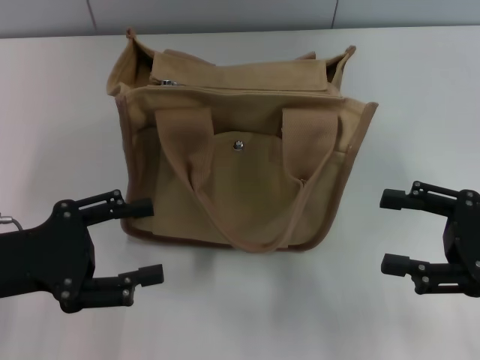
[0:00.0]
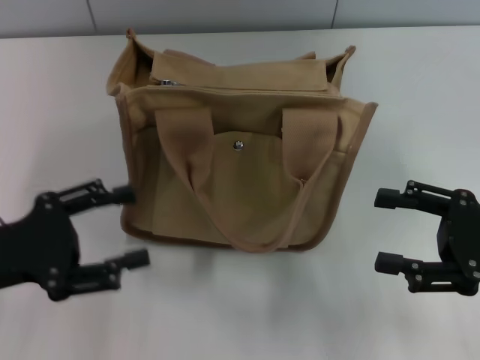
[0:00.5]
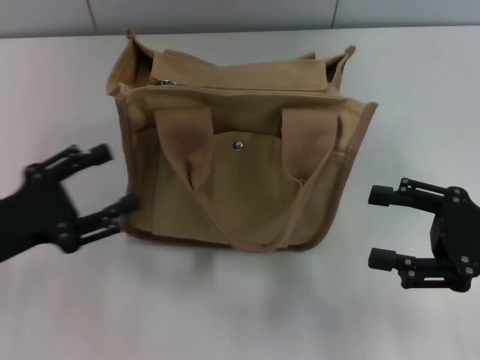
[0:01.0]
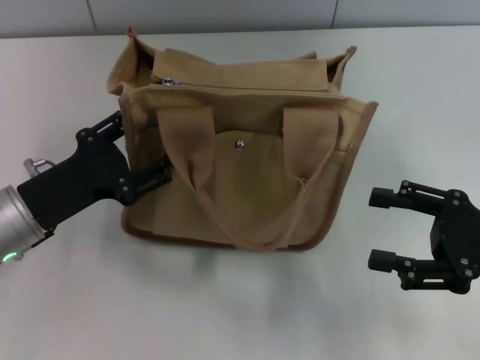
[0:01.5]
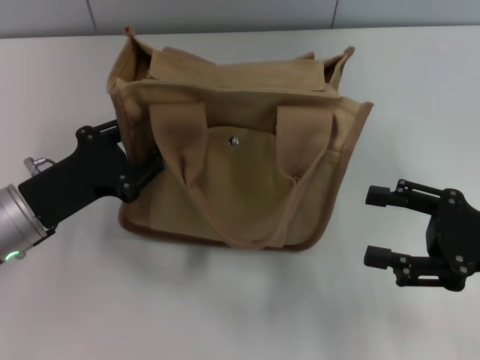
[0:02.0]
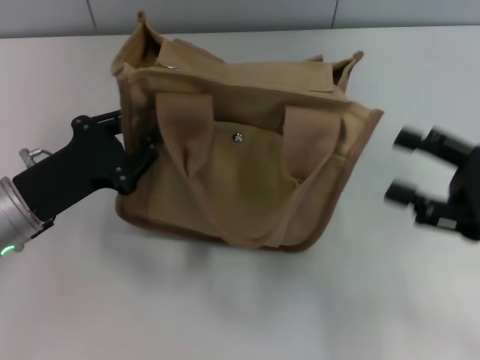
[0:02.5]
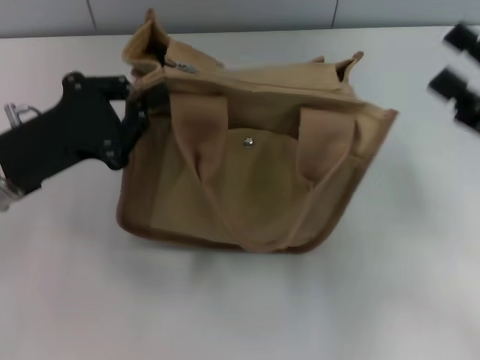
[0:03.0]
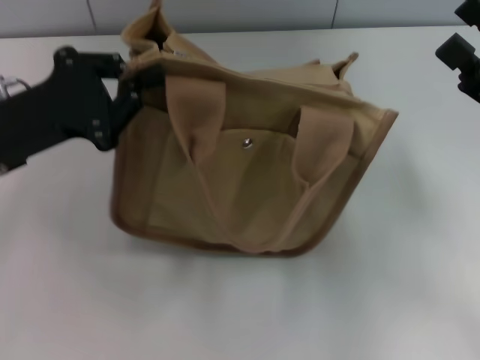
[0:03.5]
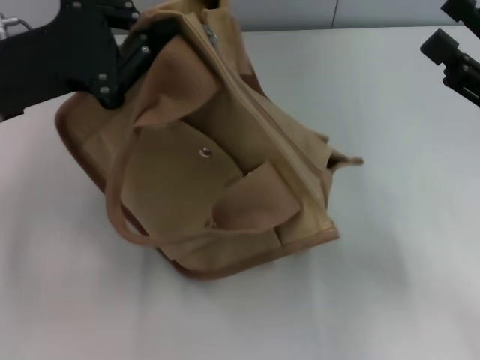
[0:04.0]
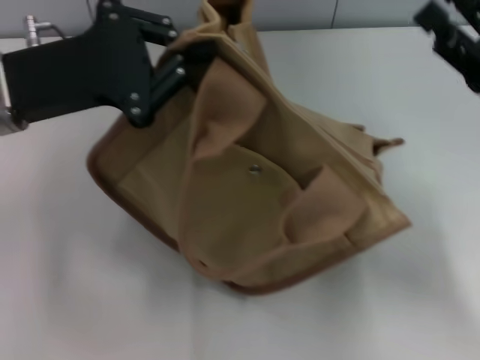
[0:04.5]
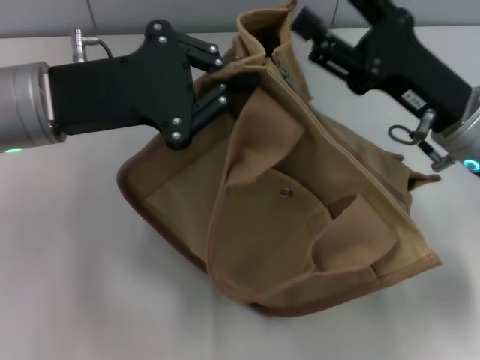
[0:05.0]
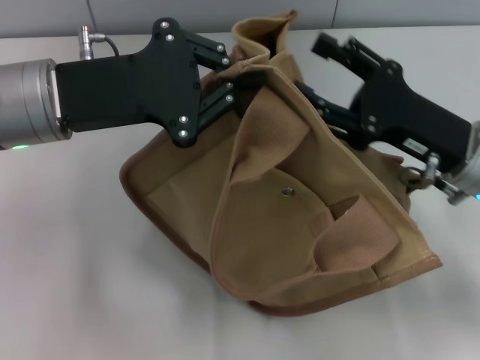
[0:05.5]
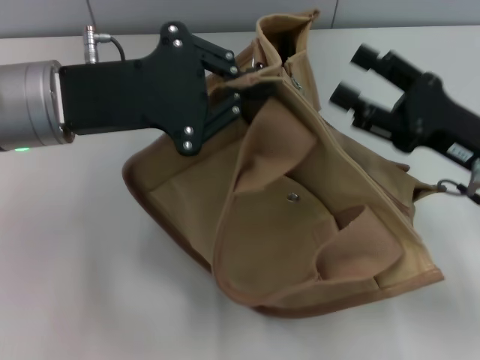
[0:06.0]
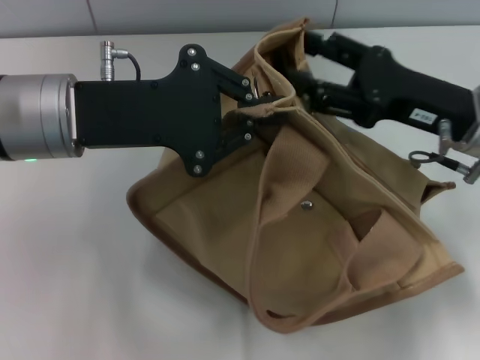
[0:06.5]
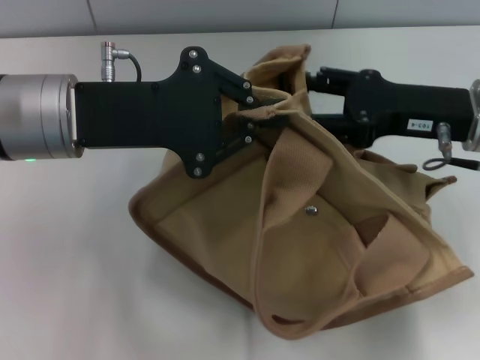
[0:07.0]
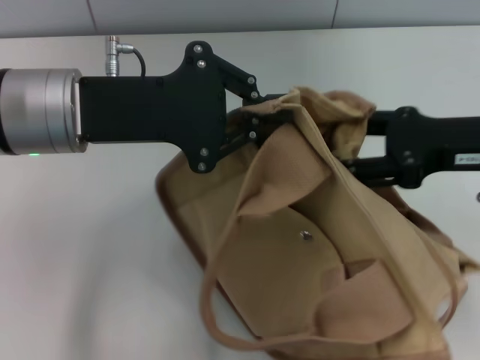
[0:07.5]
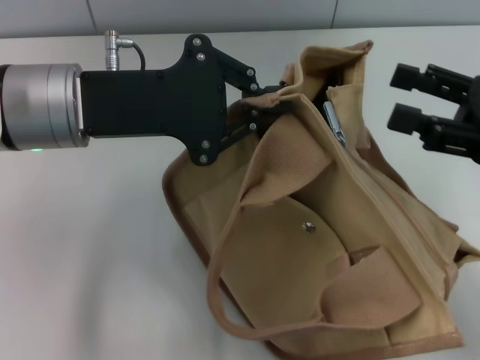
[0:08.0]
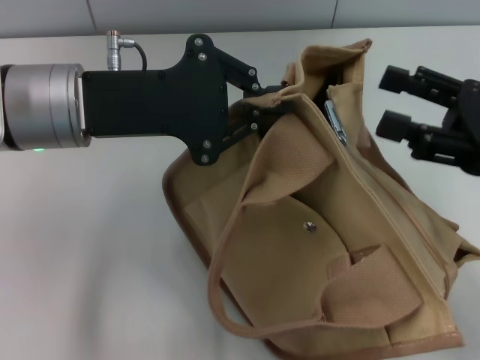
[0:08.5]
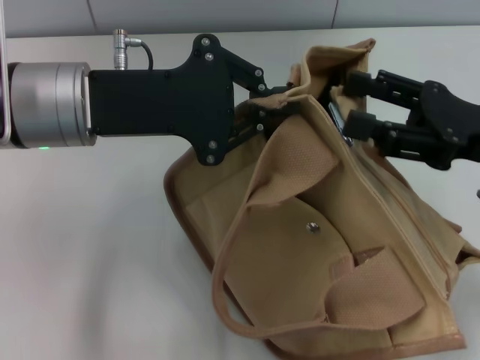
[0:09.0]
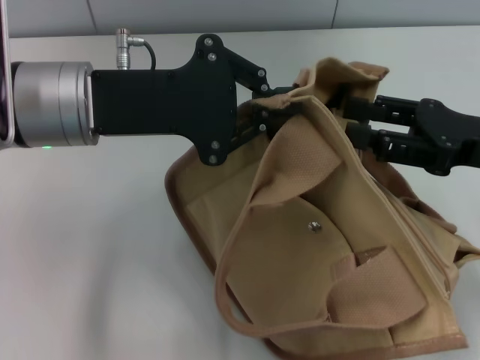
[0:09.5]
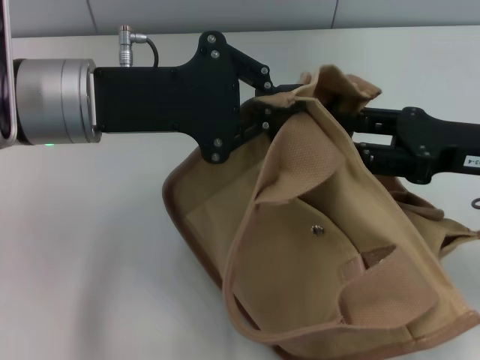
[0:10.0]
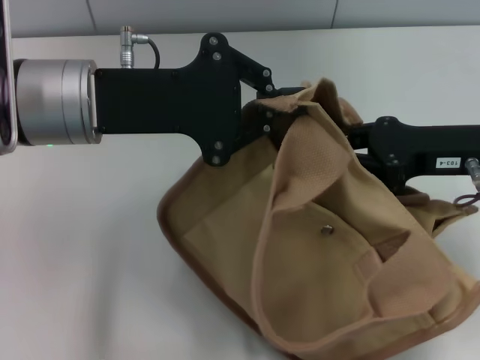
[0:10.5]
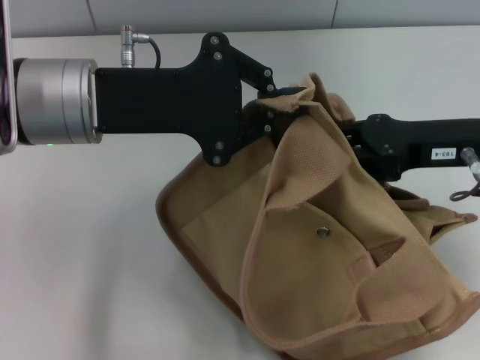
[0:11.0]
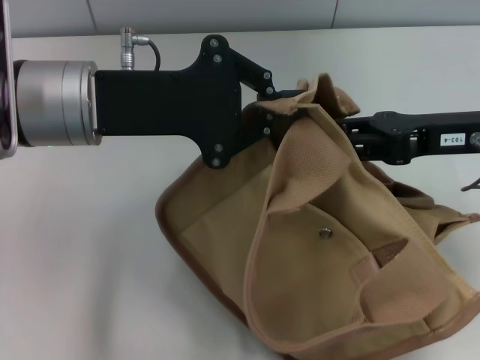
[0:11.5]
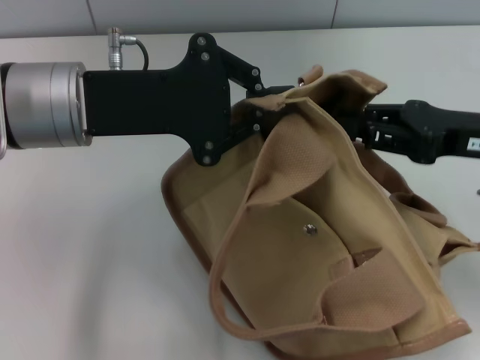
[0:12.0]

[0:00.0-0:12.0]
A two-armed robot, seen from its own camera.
0:00.0 to 0:02.0: The left gripper shifts by approximately 10 cm.
0:02.0 to 0:04.0: The left gripper travels upward and forward by approximately 15 cm, and closes up. Meanwhile the right gripper changes place by roughly 5 cm.
0:04.0 to 0:06.0: The left gripper is displaced to the right by approximately 5 cm.
0:06.0 to 0:08.0: The right gripper goes roughly 5 cm upward.
0:10.0 to 0:12.0: There are only small adjustments of the grippers.

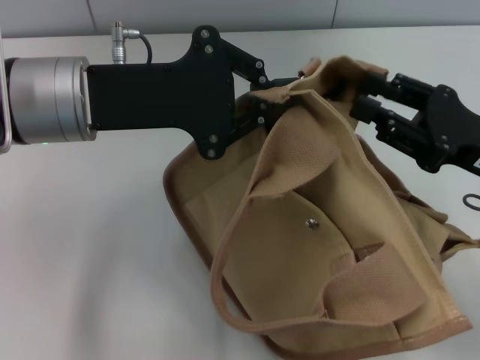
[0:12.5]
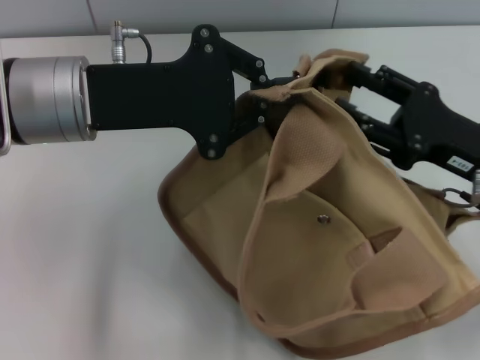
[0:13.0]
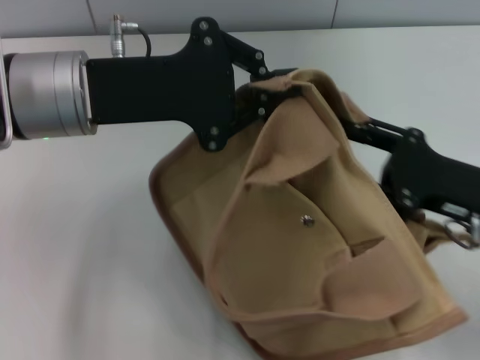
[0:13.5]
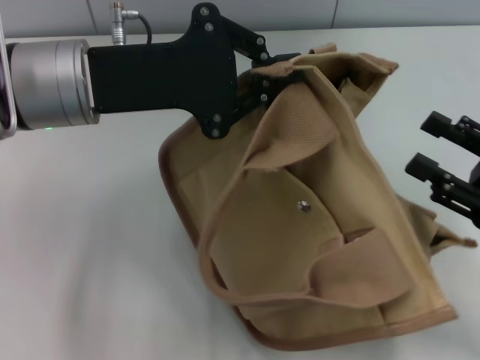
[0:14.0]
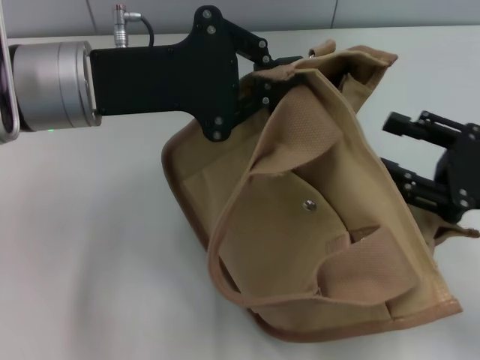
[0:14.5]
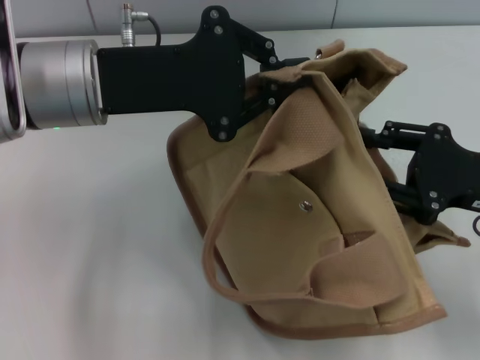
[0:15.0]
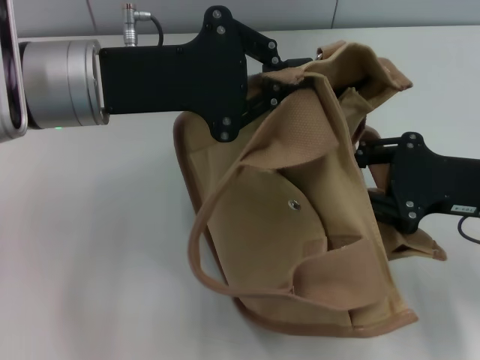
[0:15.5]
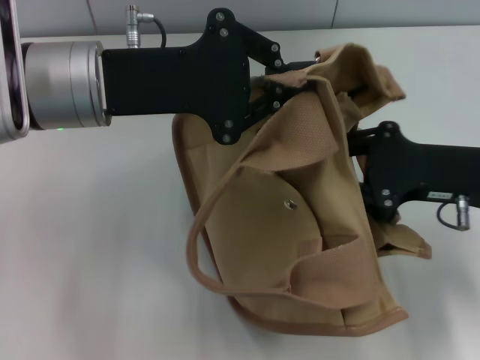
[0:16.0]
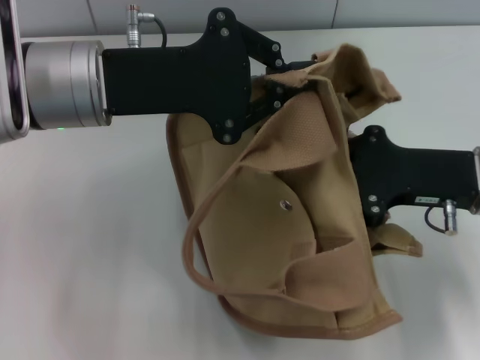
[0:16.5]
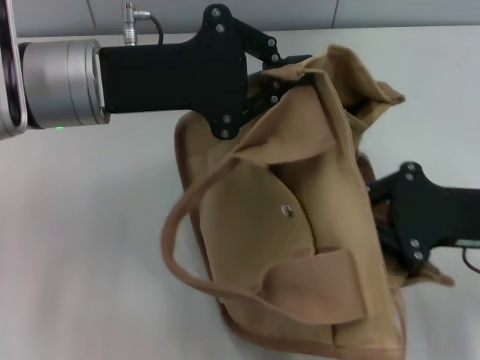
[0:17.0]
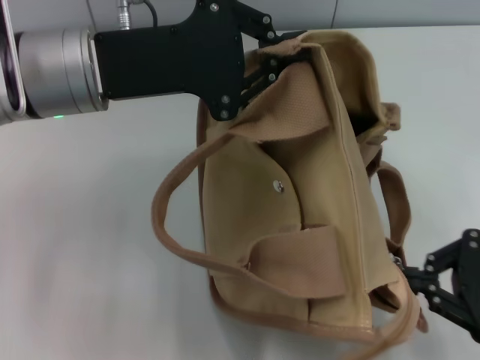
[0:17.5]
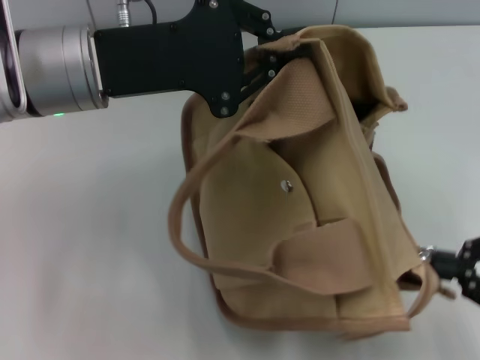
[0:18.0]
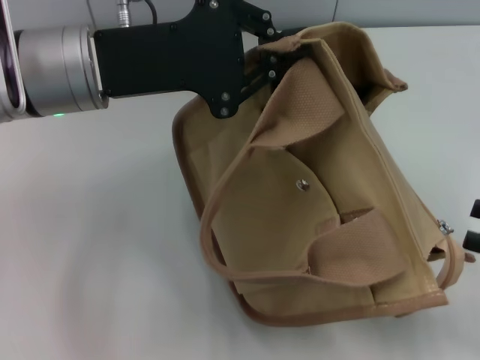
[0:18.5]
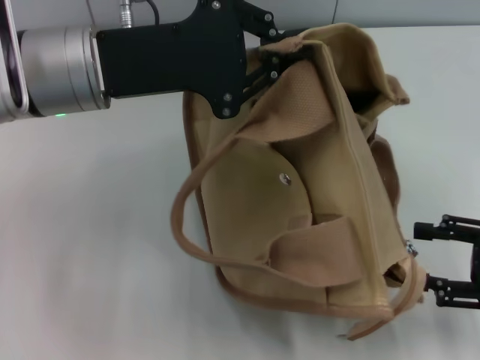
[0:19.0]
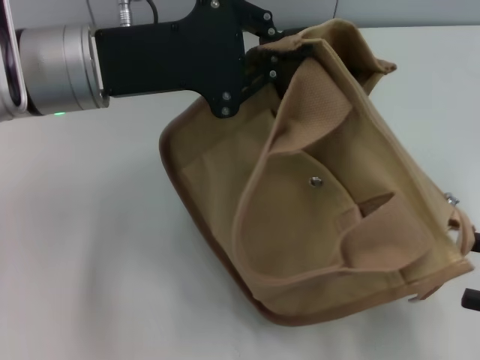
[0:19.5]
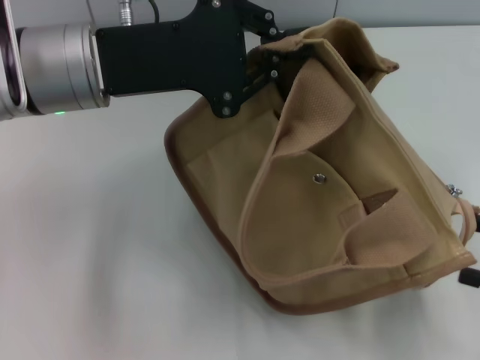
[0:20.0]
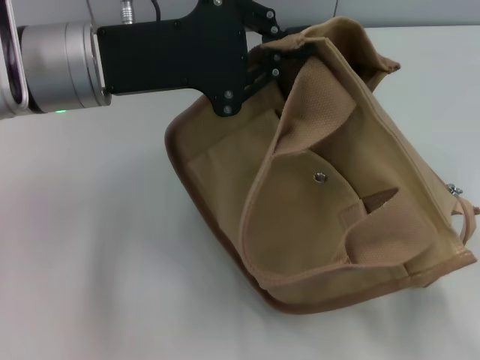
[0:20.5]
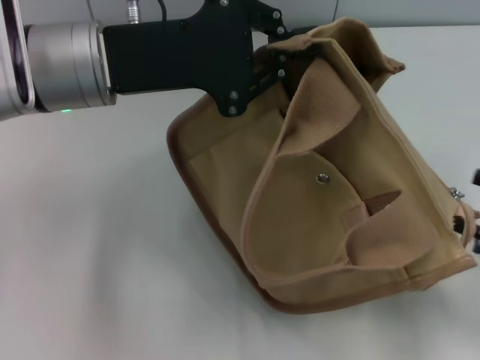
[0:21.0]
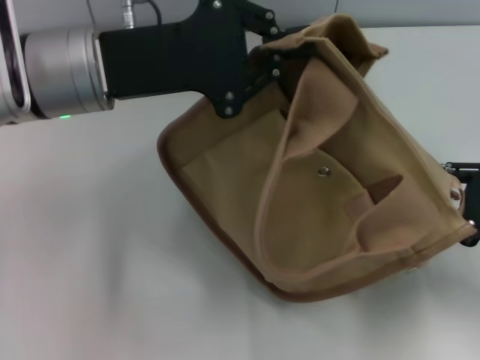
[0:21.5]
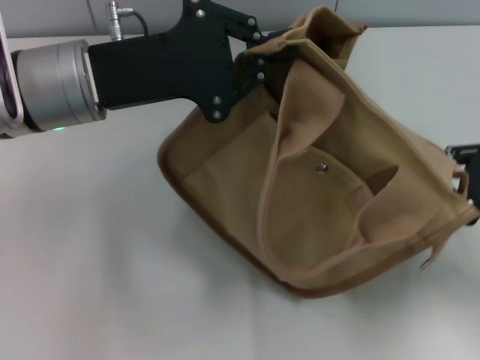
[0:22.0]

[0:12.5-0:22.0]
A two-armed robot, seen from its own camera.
Step, 0:12.5 to 0:19.0: Pull open the zipper with your right hand.
0:14.5 to 0:16.5: The right gripper is displaced to the left by roughly 5 cm, and closes its fingers.
0:16.5 to 0:18.0: The right gripper shifts some 15 cm to the right and backward.
0:18.0 to 0:20.0: The right gripper opens its fingers.
0:20.0 to 0:22.0: The right gripper shifts some 10 cm forward, and closes.

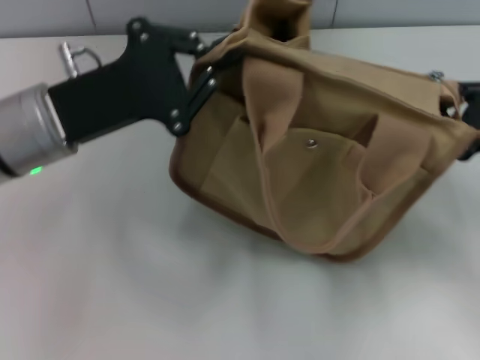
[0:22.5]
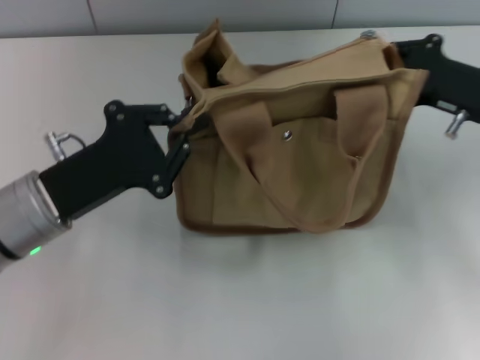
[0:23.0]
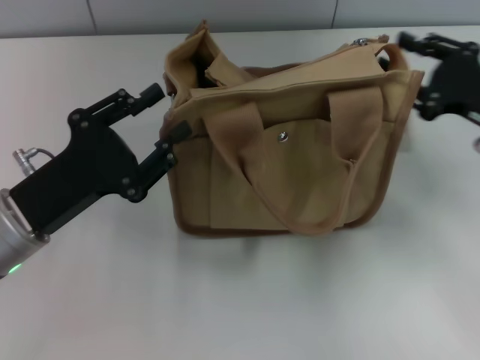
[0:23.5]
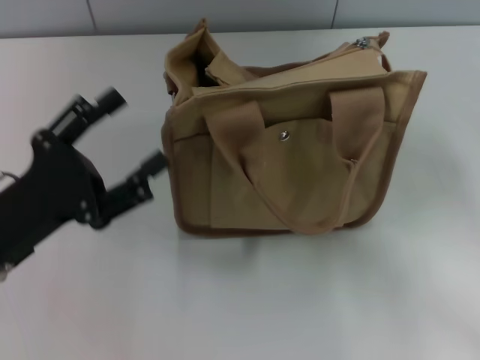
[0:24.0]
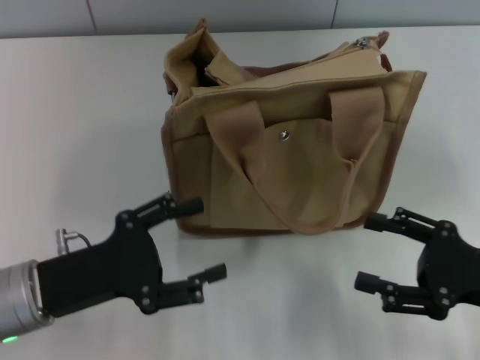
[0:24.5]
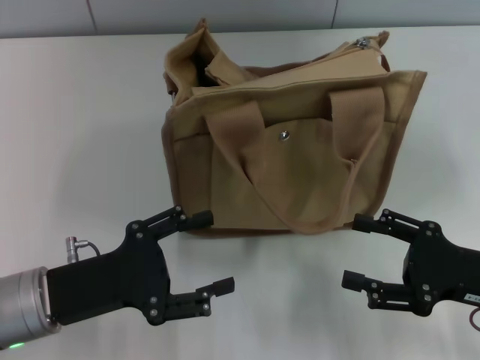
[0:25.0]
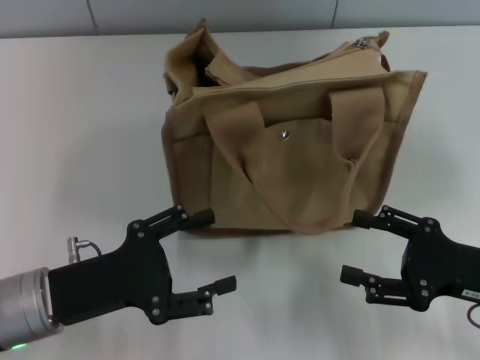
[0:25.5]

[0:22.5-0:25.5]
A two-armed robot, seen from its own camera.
0:22.5 to 0:24.0: The left gripper heads backward, downward and to the left, covering some 10 cm, and opens up, while the right gripper is displaced backward by approximately 5 cm, and opens.
0:24.0 to 0:25.5: The right gripper heads to the left, covering approximately 5 cm.

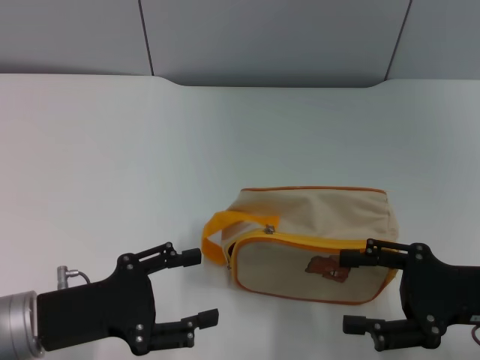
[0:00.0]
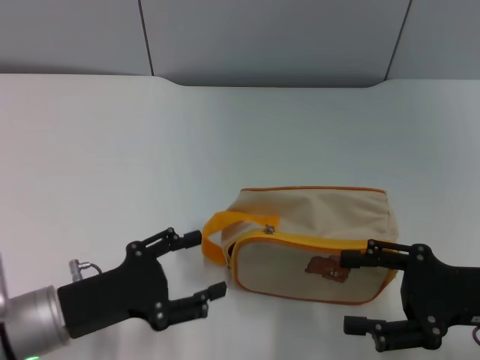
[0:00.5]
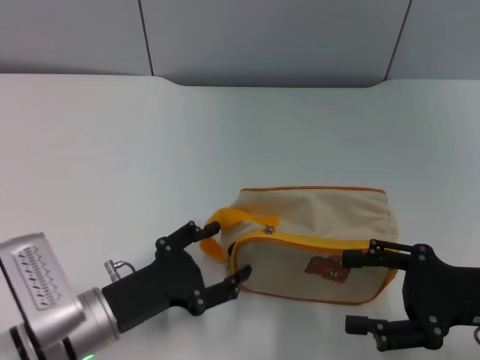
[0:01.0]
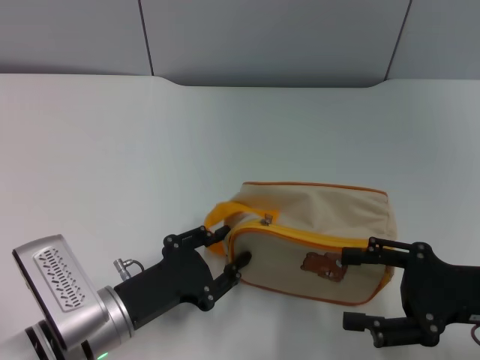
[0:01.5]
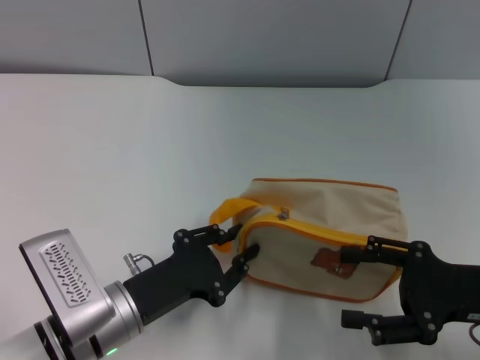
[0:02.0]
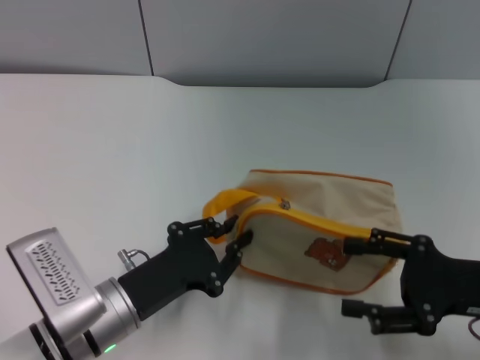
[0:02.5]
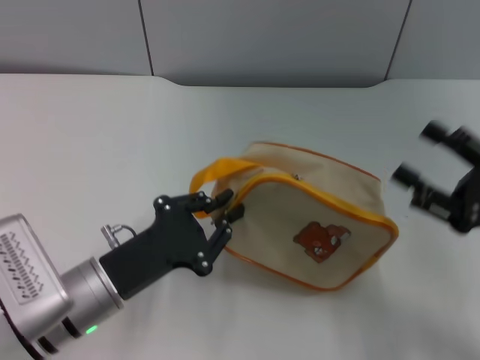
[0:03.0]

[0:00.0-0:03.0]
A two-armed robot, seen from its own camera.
Step, 0:00.0 to 0:02.5: Pick up the bag with left gripper.
0:00.0 to 0:01.5: The left gripper goes some 10 cm to the right and downward.
0:01.5 to 0:03.0: The left gripper closes its fingers.
